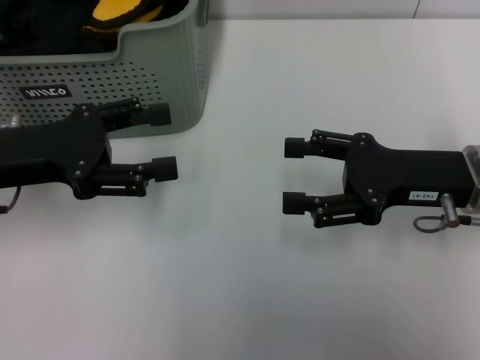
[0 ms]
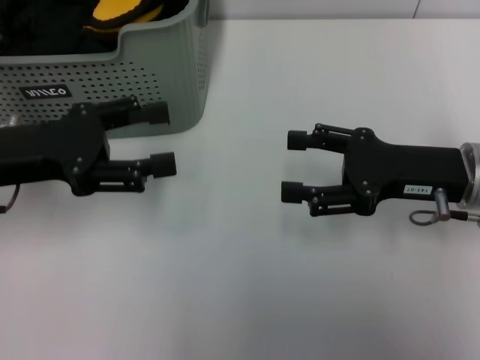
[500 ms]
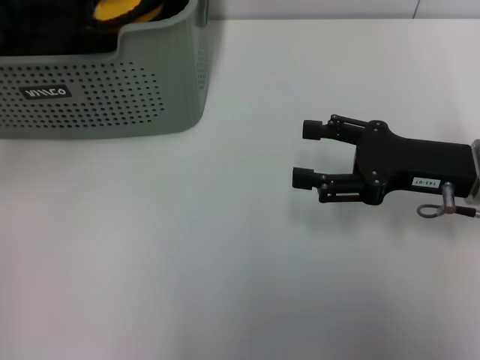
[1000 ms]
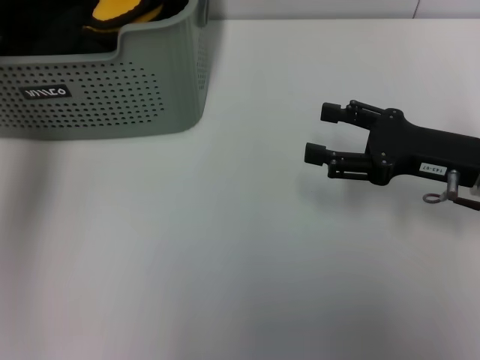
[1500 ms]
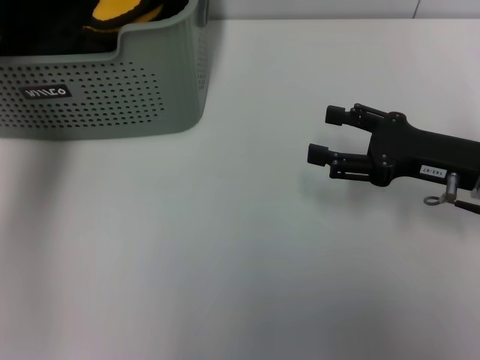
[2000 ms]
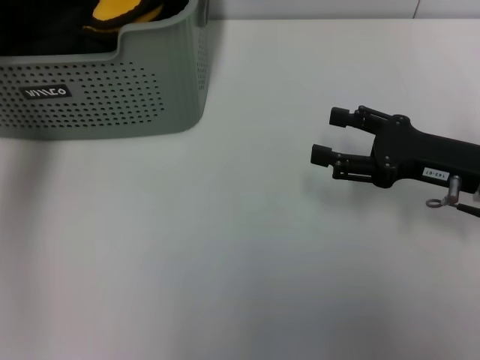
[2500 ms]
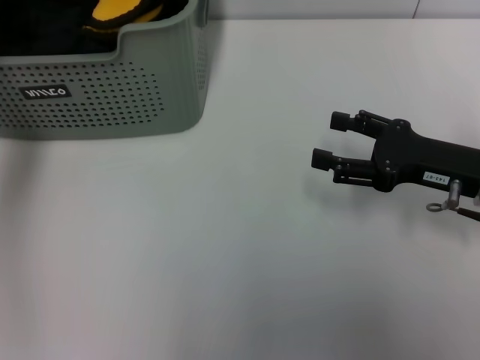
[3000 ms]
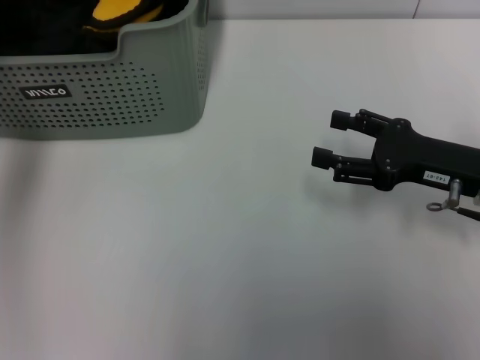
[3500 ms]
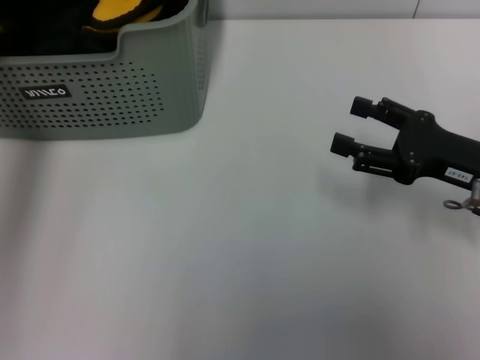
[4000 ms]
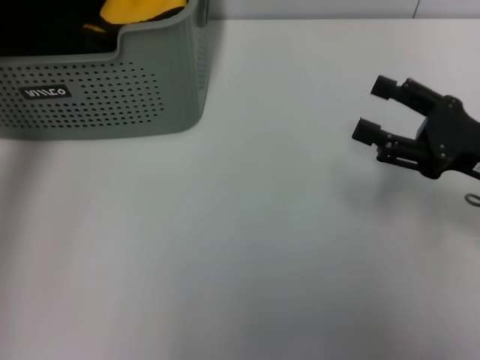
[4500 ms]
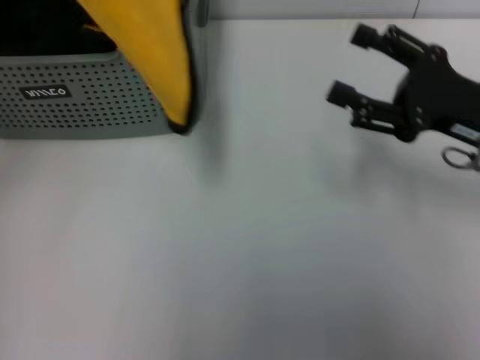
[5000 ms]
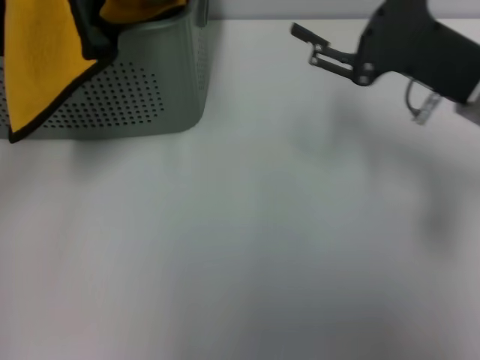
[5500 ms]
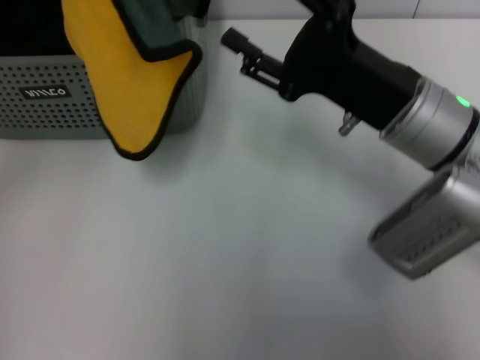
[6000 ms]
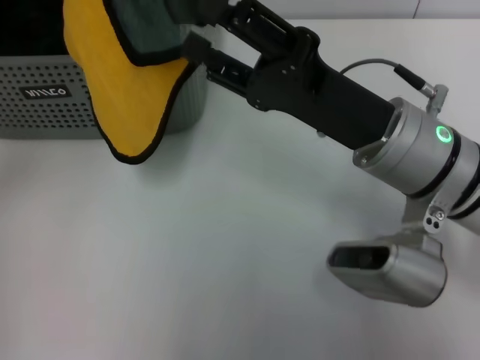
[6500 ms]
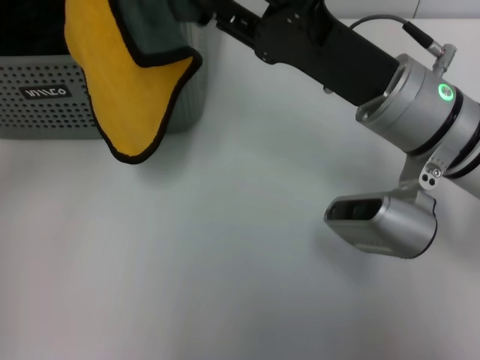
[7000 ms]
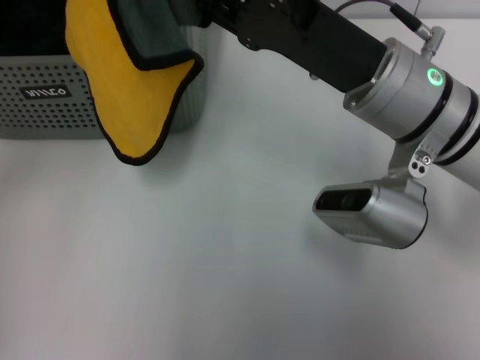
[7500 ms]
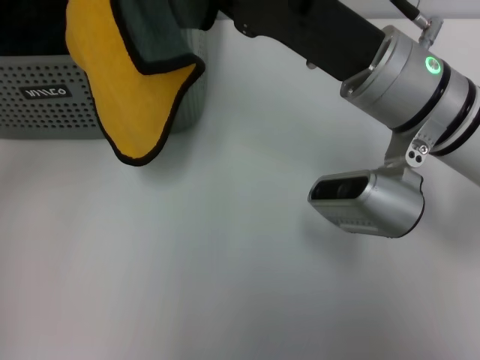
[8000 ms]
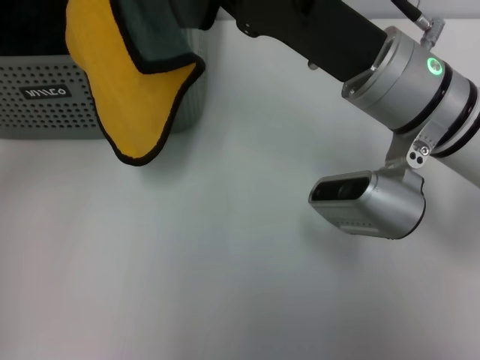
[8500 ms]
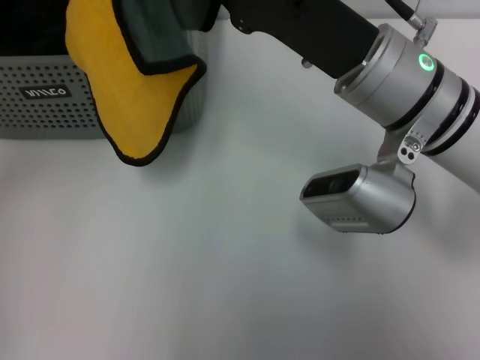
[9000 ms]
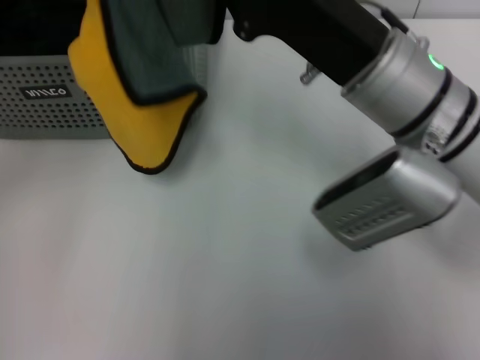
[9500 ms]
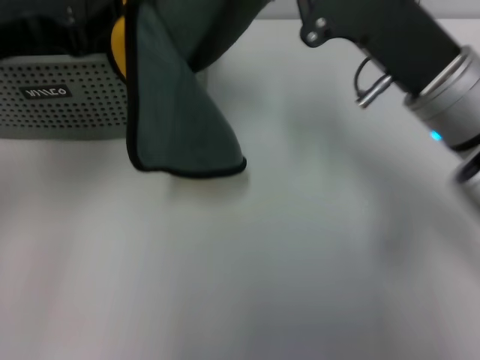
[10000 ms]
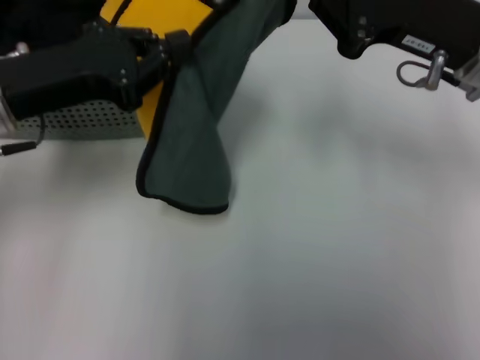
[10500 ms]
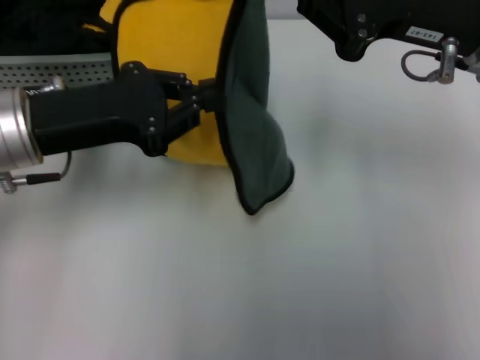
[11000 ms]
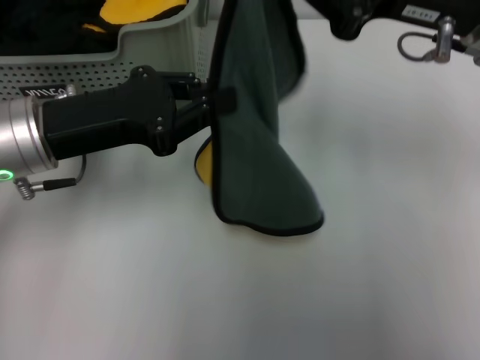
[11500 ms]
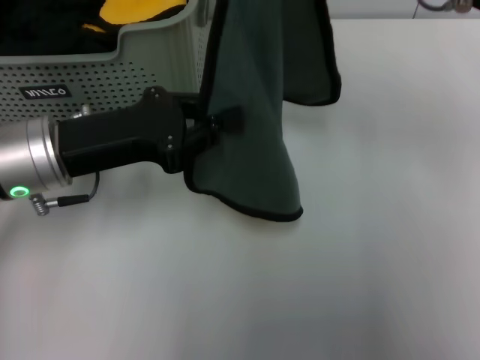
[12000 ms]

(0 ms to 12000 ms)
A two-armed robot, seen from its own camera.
Task of the whole recording: pick up the towel from the storage box and lay it flat on the table.
Step, 0 ms - 3500 ms: Pick up a towel with the left gripper.
Step, 4000 ms - 9000 ms: Spread the towel flat with the left gripper.
0 ms - 2000 ms: The left gripper goes about 15 cm forward and upward.
2000 ms - 4000 ms: The left gripper goes roughly 5 cm backward, and closes.
4000 ms - 6000 ms: The right gripper moves to the left, some 10 cm, while the left gripper goes some 10 cm backward and upward.
6000 ms - 8000 ms: The right gripper changes place by about 5 cm.
8000 ms - 10000 ms: The right gripper closes up, while the left gripper shifts about 10 cm downward.
10000 ms - 12000 ms: The left gripper goes approximately 10 cm downward. The right gripper goes some 10 cm upward.

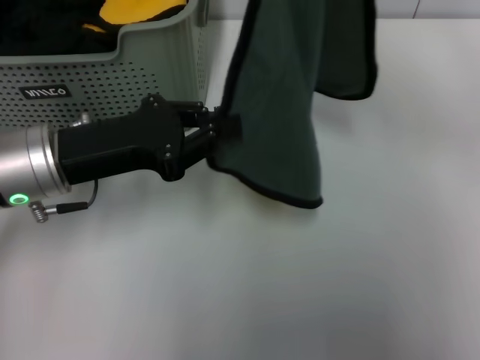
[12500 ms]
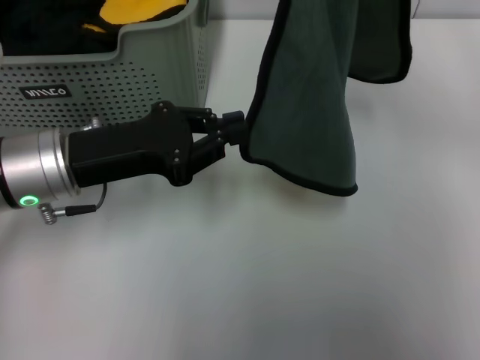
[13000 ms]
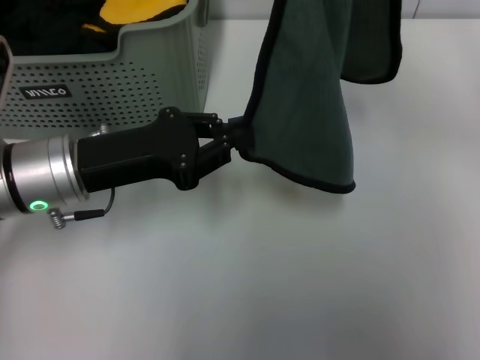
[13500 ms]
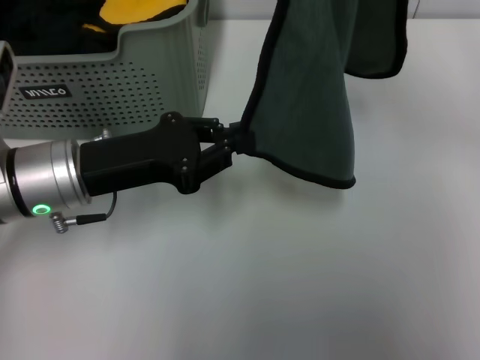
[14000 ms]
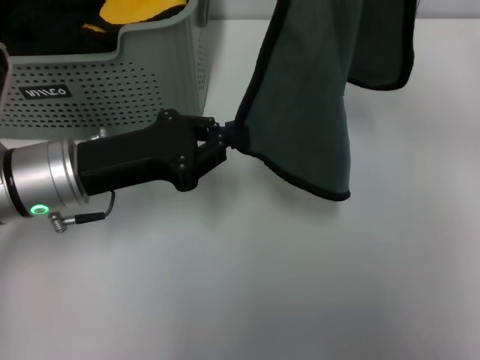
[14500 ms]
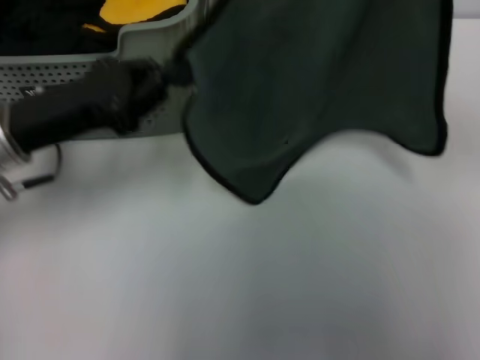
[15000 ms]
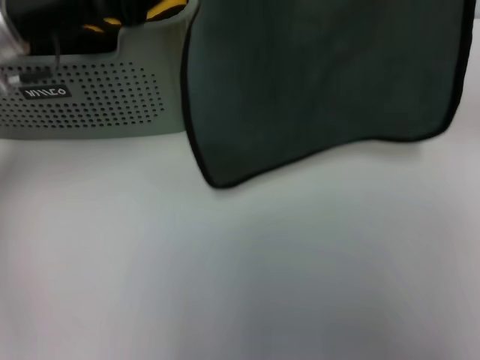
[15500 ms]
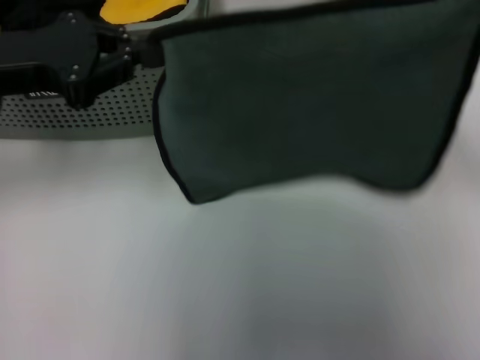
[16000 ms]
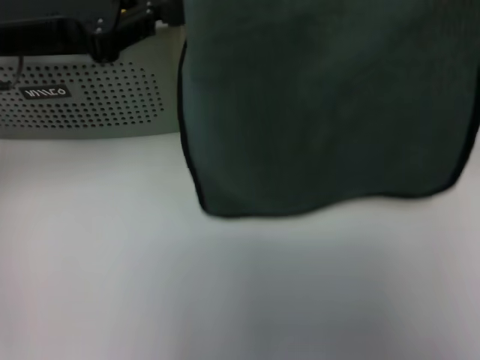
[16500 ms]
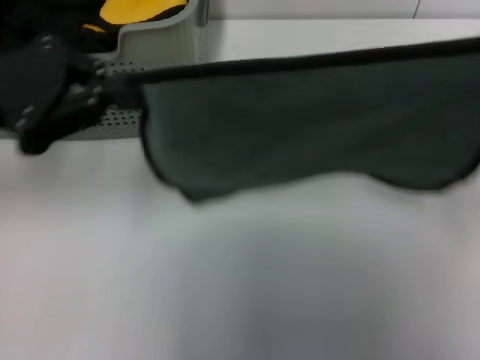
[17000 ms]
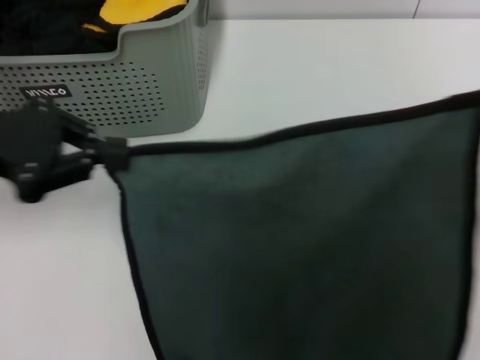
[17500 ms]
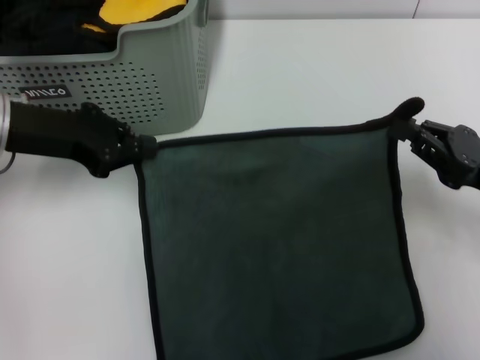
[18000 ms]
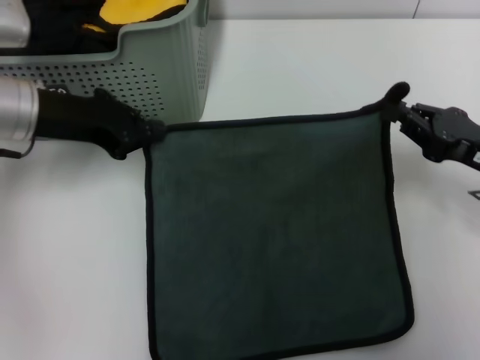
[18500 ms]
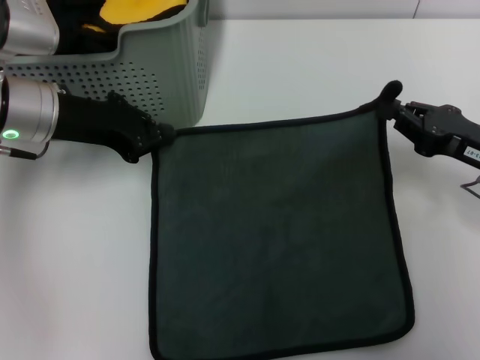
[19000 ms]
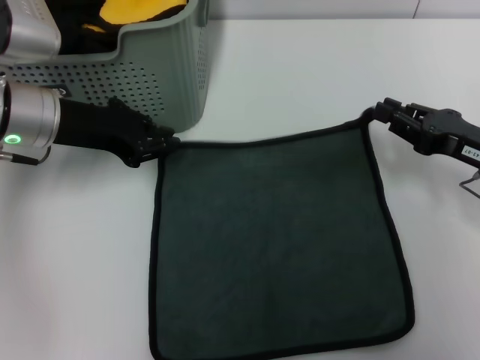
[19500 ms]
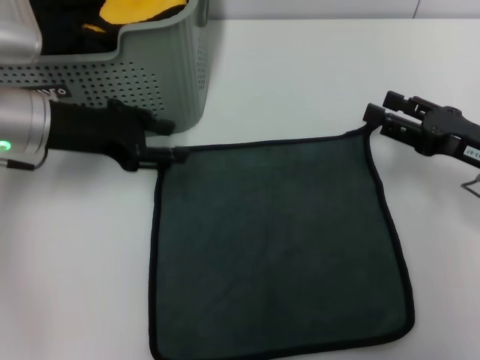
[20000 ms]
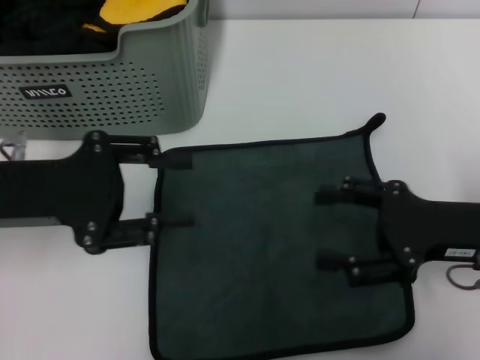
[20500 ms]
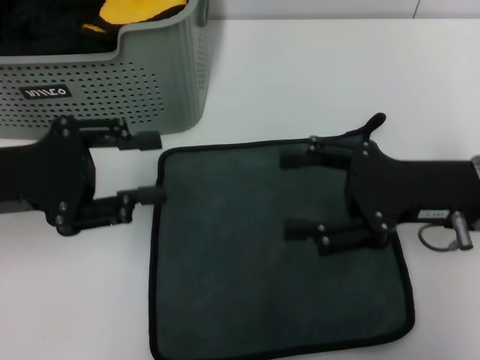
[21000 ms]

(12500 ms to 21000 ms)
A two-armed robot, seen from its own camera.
Task of the whole recording: pick up the towel from the storage box and lay it flat on the table.
Step, 12500 ms - 19500 ms: Spread the towel flat with the right gripper.
12500 ms - 14500 ms: There are only small adjustments of the grippers.
14500 ms - 16500 ms: The left gripper heads upward and forward, covering approximately 10 cm. The right gripper moves to the right and downward, about 10 cm.
16500 ms - 19000 ms: The two grippers go about 10 cm downward.
19000 ms - 21000 ms: The left gripper is displaced backward by approximately 10 cm, and opens up; the right gripper goes about 5 cm to the left, and opens up.

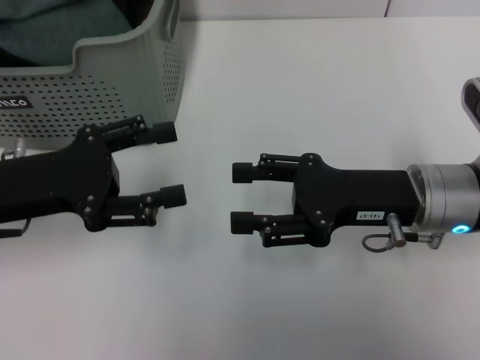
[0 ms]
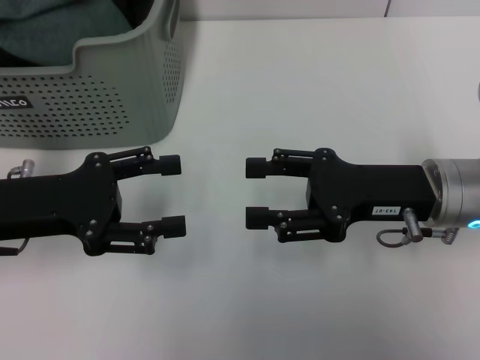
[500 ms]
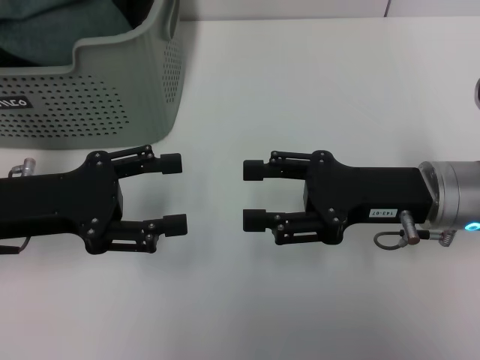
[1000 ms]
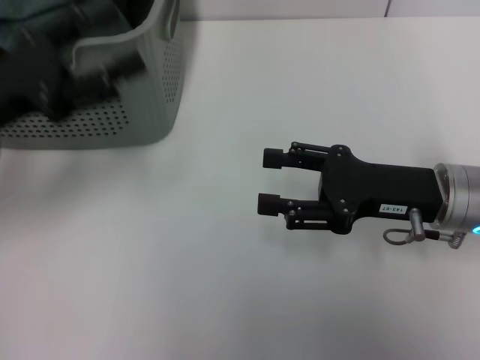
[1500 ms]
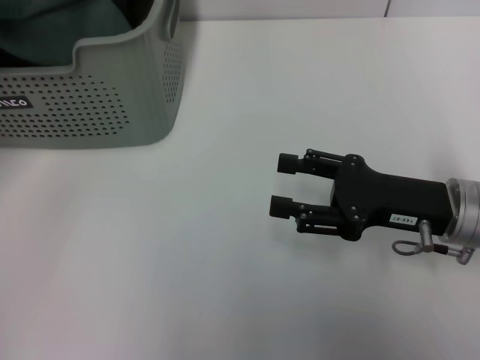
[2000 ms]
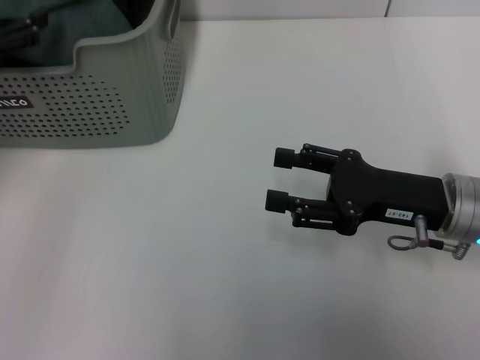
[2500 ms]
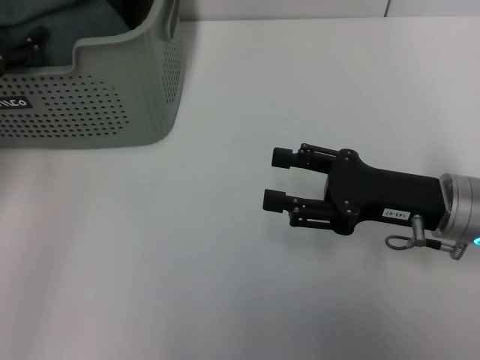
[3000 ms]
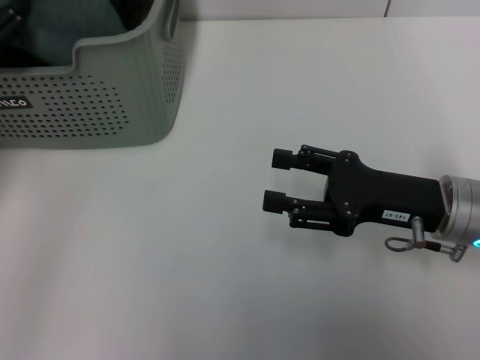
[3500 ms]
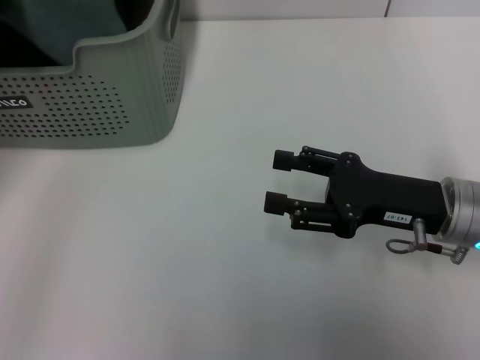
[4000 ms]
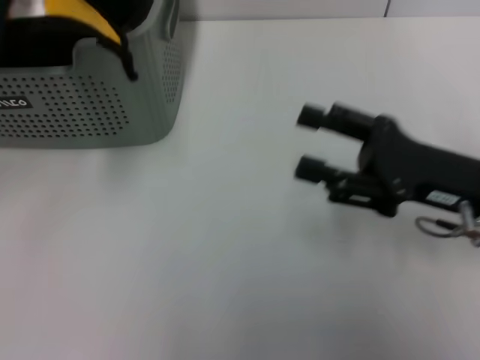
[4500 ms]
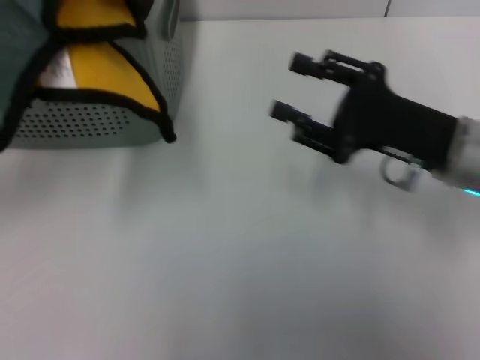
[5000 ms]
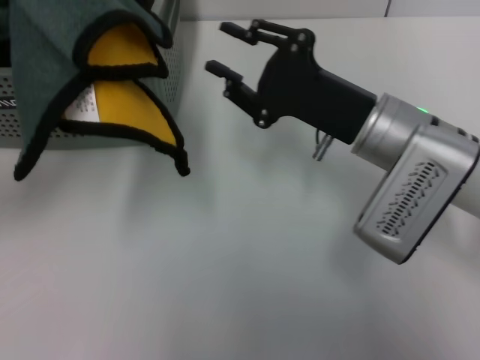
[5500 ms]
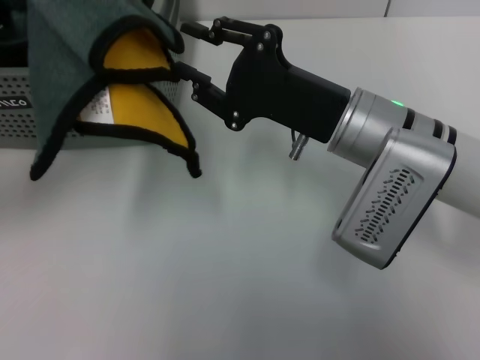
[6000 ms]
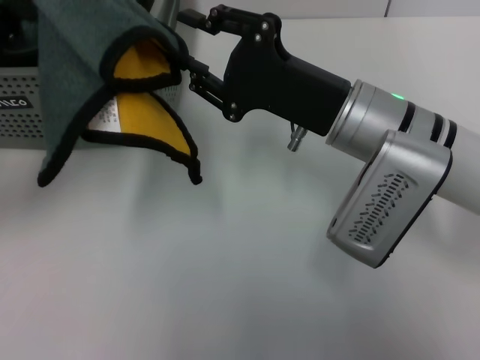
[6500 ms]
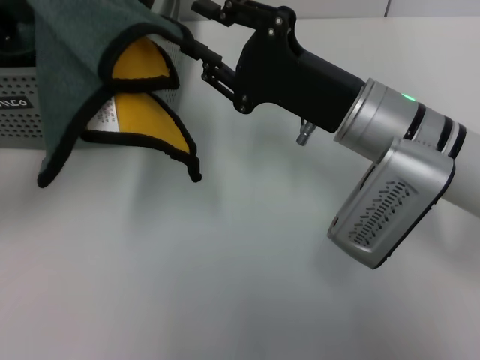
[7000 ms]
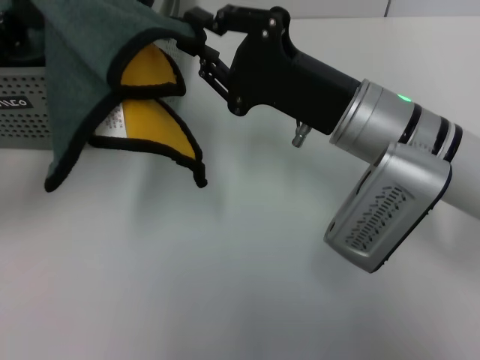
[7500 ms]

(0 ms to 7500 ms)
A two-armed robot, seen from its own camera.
Task of the whole recording: pick up the towel from the storage box and lay it flat on the table.
Step, 0 ms - 3500 ms: Pick up a towel with the left gripper.
0 ms - 2000 ms: The left gripper is displaced upward, to the left and forward by about 10 cm.
2000 ms - 4000 ms: The left gripper closes.
4000 ms - 5500 ms: The right gripper is displaced to the left by some 5 cm, and closes.
